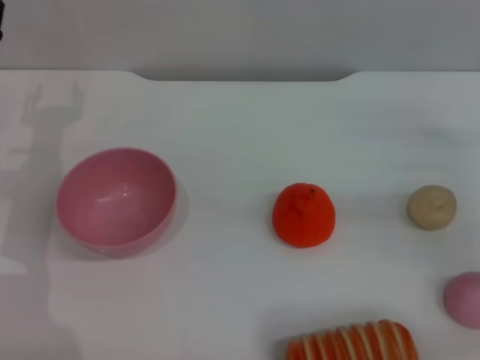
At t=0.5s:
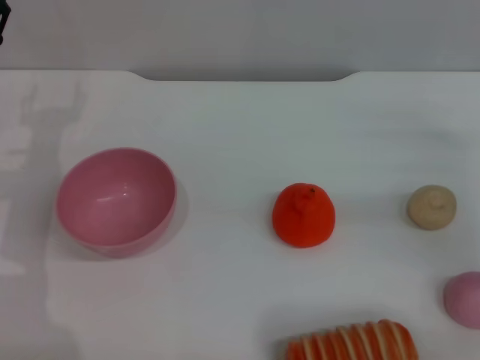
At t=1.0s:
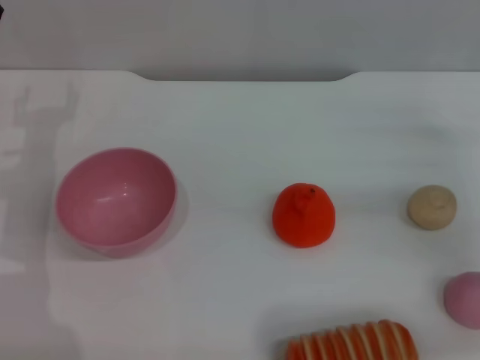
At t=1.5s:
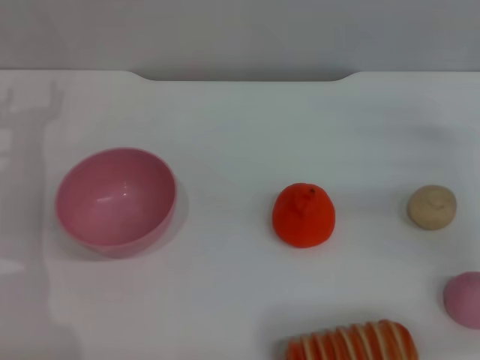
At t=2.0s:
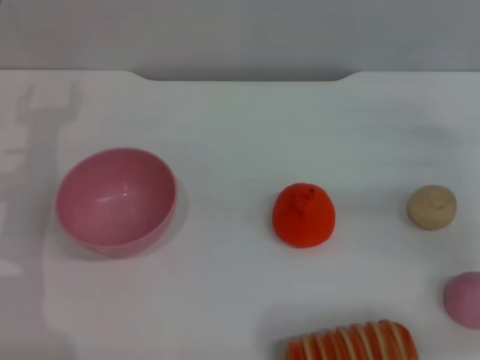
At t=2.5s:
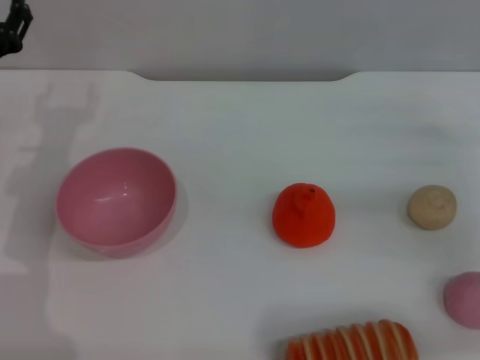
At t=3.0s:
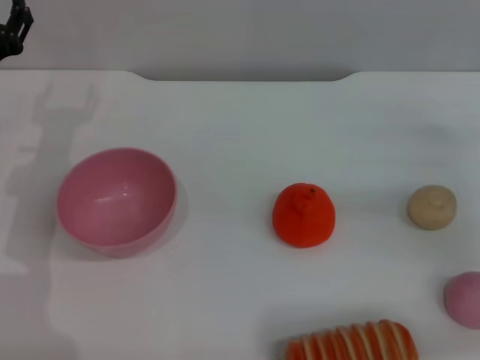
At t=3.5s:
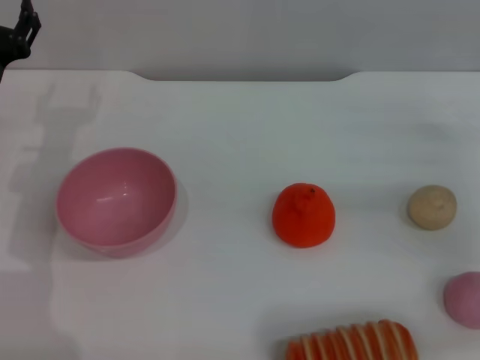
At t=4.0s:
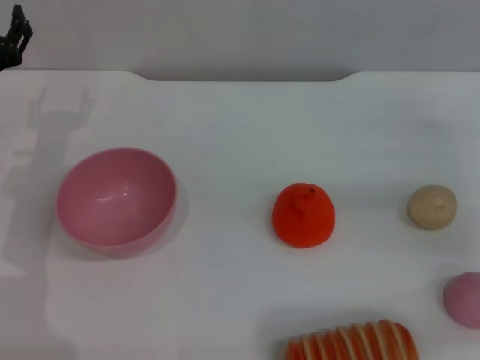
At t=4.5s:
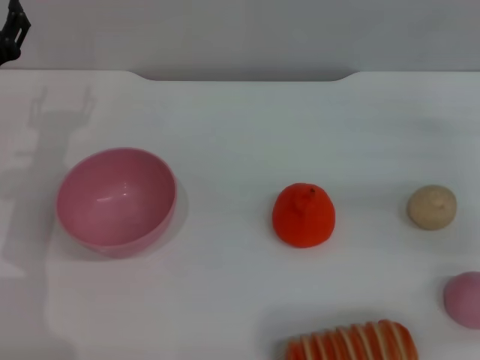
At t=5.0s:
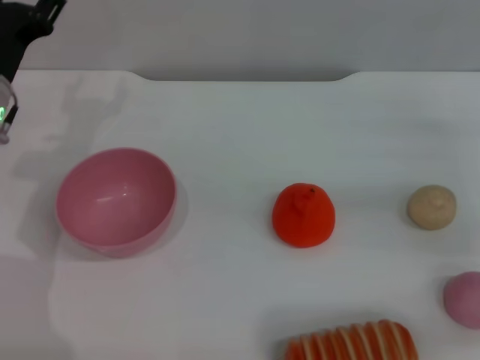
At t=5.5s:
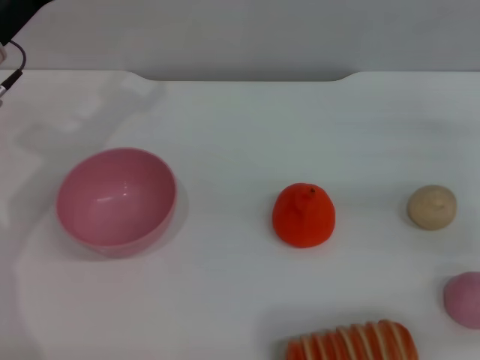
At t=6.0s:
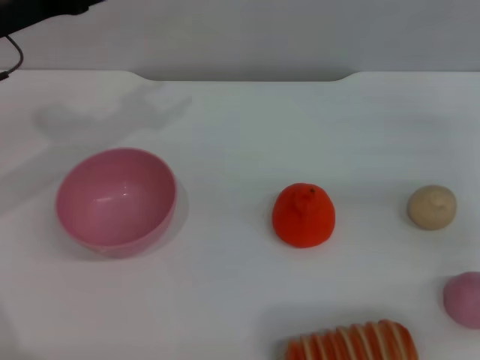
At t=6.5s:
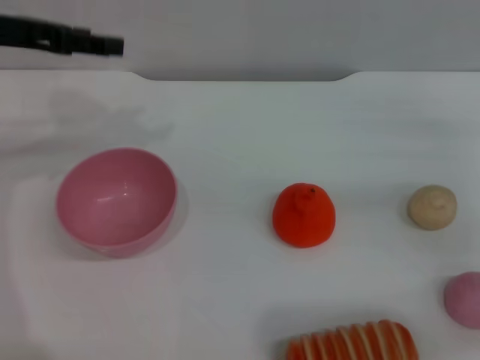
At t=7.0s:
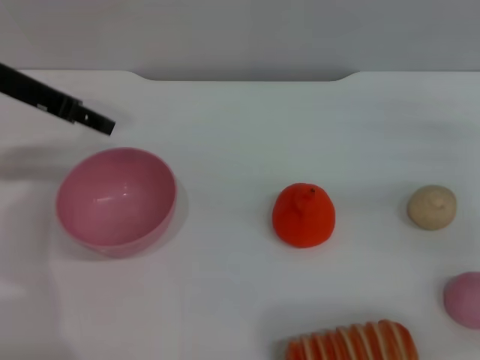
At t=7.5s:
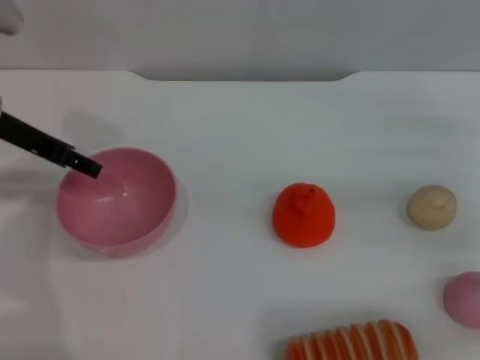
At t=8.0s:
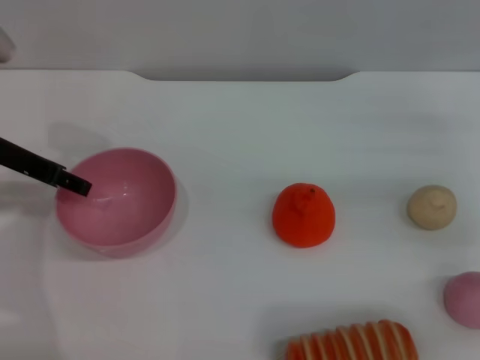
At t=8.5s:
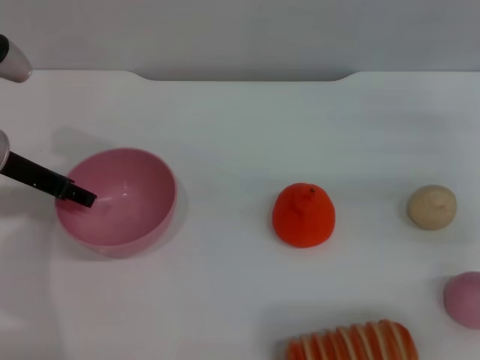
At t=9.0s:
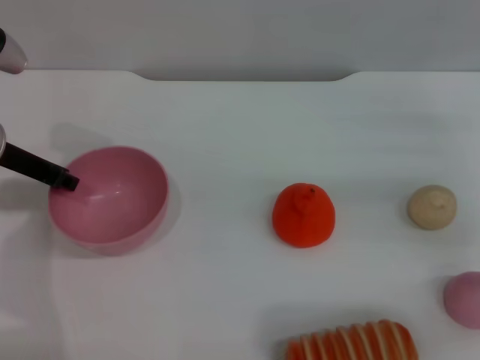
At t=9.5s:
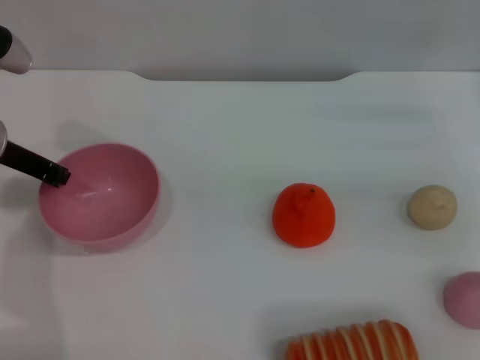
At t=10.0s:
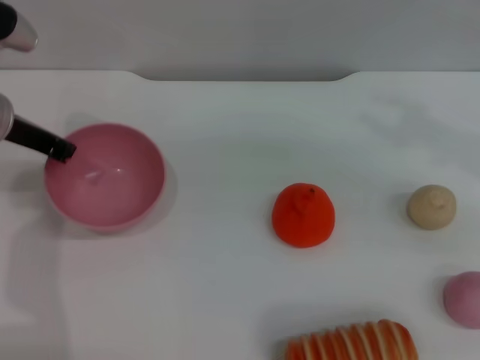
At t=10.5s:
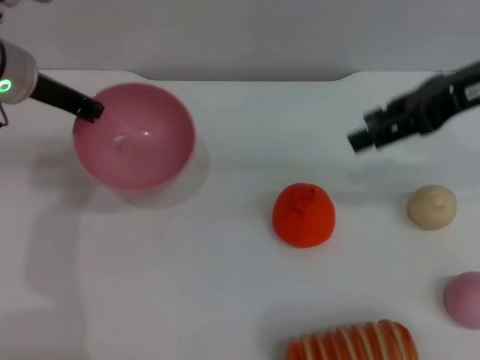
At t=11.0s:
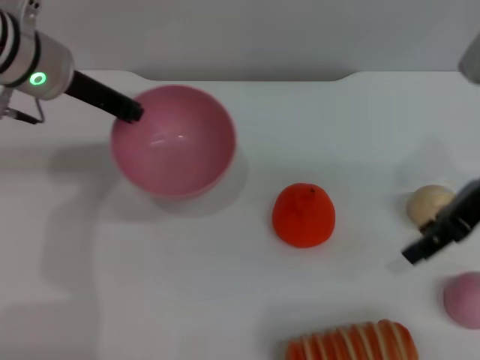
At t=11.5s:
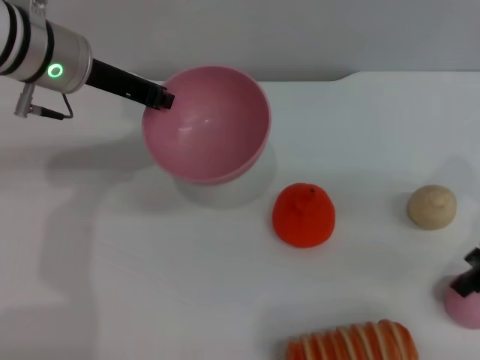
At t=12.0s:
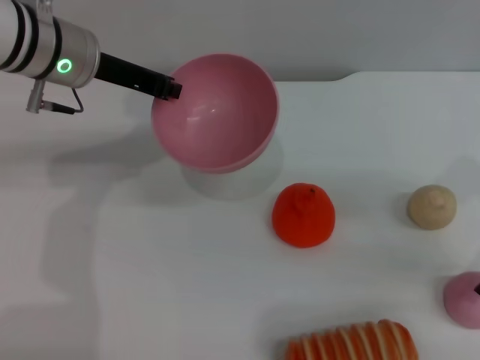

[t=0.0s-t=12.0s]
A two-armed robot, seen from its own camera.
Task of the whole recording: put the peach into the pink bowl and pour it out repeatedly.
Step, t=0.0s to t=10.5s: Pick up the bowl with the left gripper.
t=4.0s to t=6.0s: The left gripper is displaced upward by roughly 10 cm.
t=8.0s to t=10.0s: The left gripper closes up.
t=10.0s to t=12.0s: The right gripper moves downward, roughly 5 cm. Meanwhile the left gripper heads to the right, covering approximately 10 cm.

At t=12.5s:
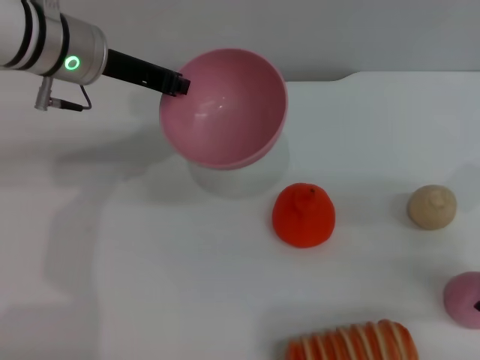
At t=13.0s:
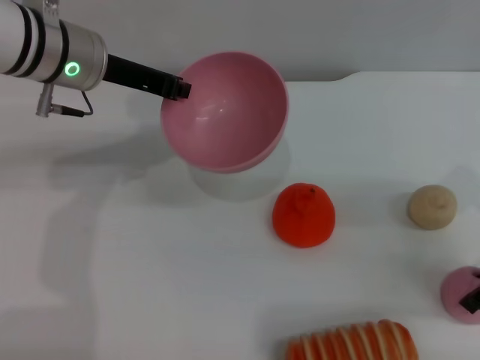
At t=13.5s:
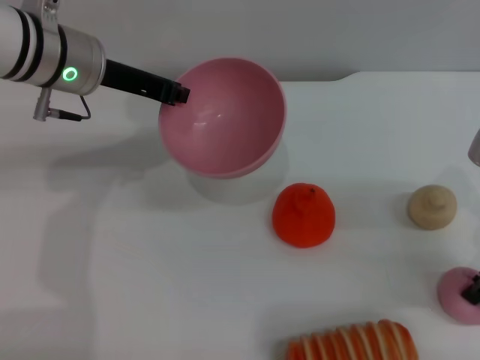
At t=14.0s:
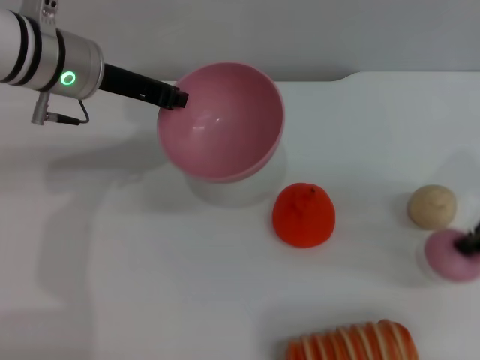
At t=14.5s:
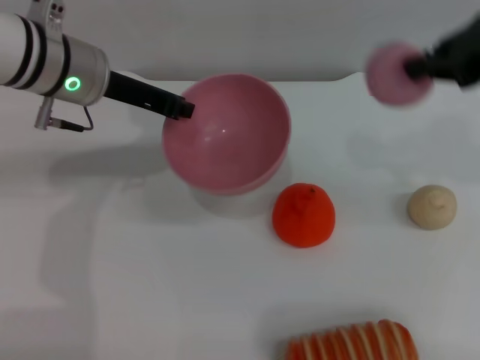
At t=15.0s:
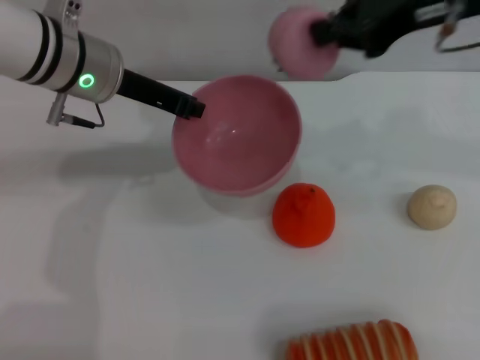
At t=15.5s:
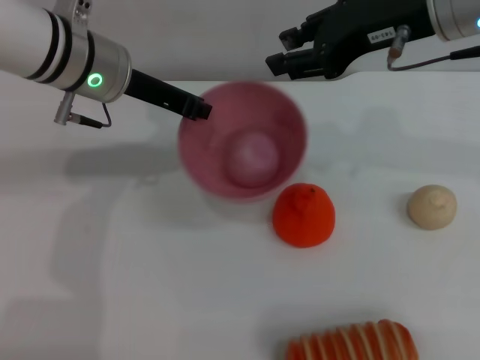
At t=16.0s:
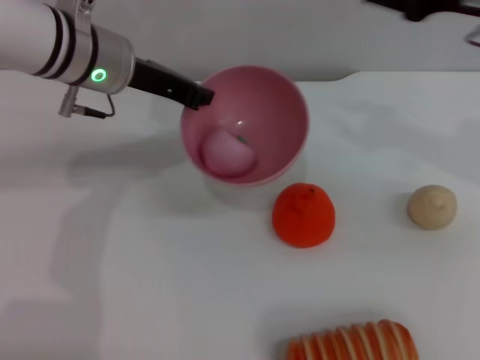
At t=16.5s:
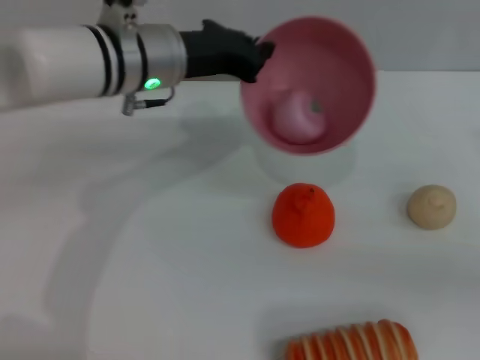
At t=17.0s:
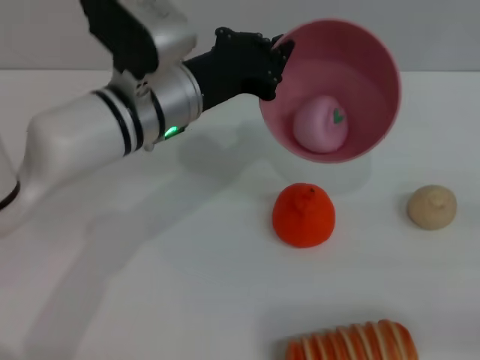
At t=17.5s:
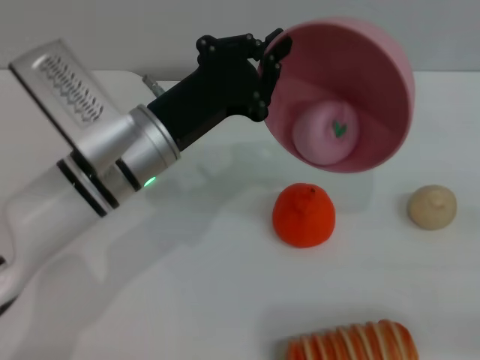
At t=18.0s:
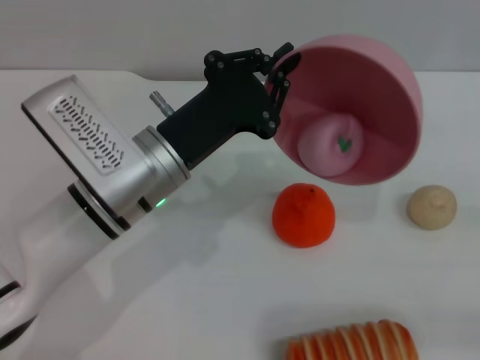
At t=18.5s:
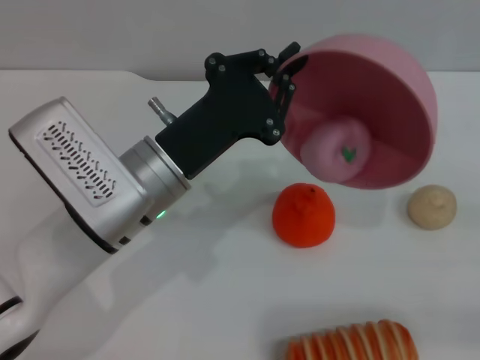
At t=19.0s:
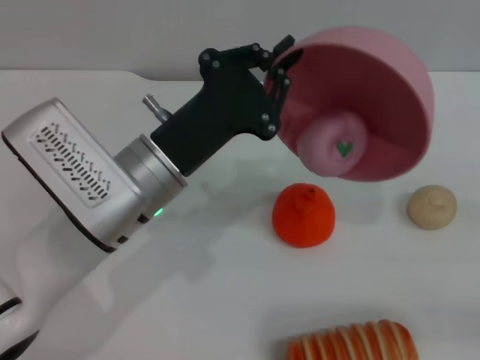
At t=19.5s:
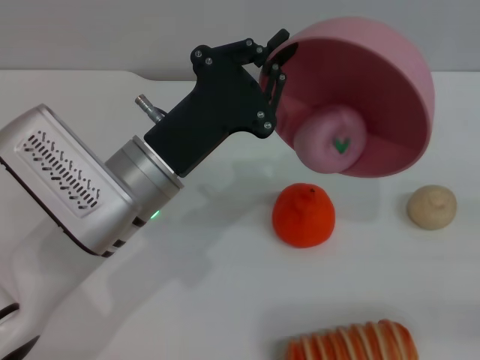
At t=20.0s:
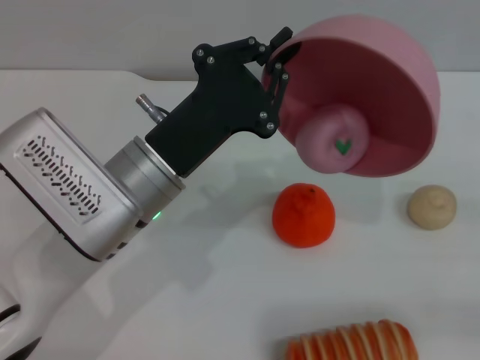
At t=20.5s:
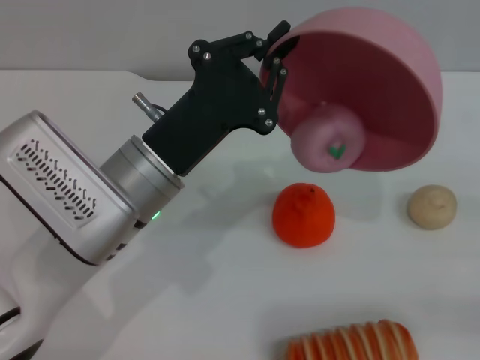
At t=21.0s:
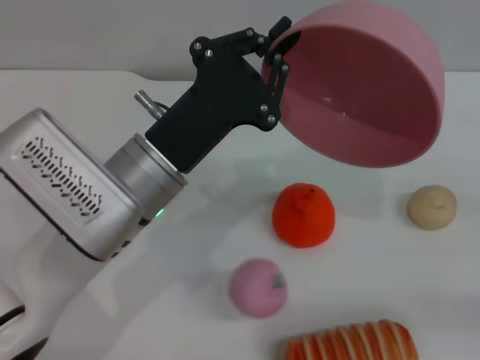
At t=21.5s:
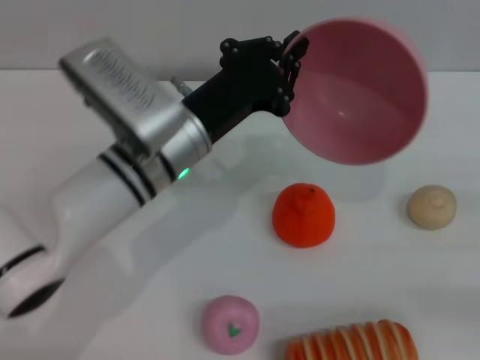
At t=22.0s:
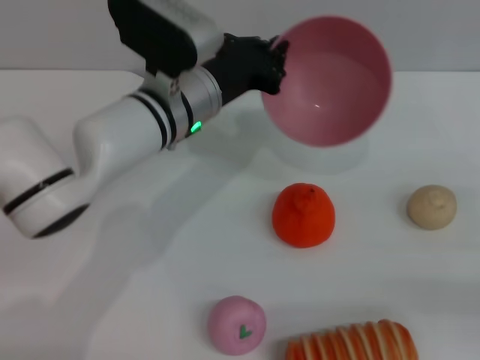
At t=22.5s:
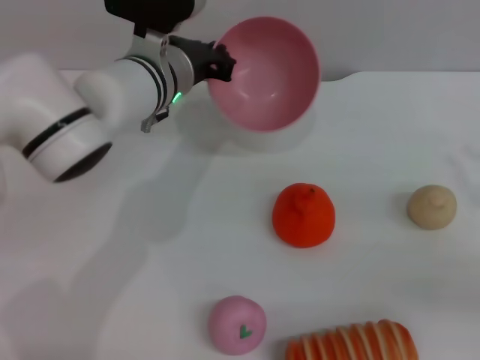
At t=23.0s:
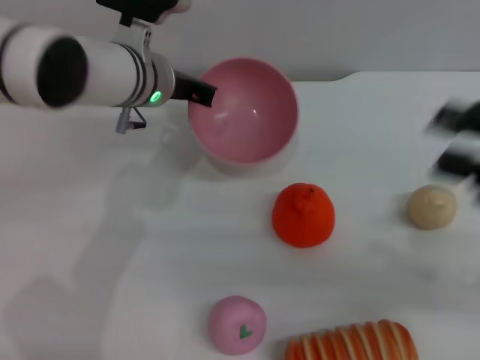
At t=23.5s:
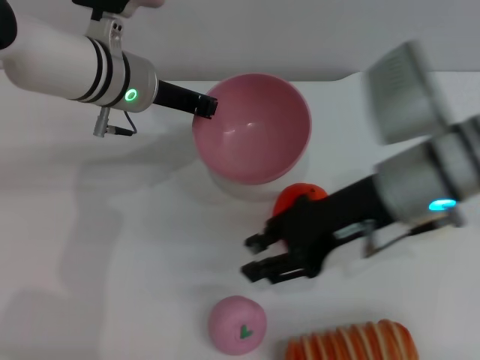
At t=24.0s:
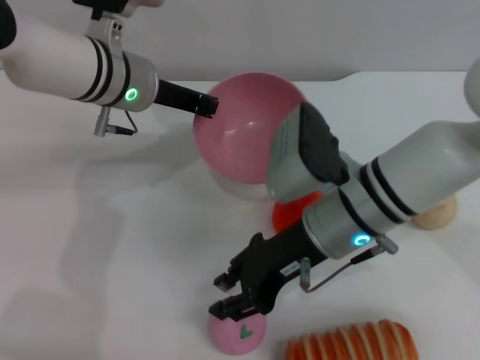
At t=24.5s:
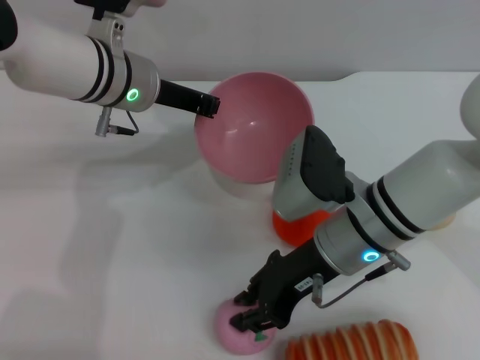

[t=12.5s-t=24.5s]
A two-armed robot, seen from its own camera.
Task of the whole recording: put the peach into the pink bowl and pour it out repeatedly.
Step, t=14.5s to t=15.5s: Place the peach into the bowl.
Step, t=16.0s to t=21.5s: Pour the peach out of bowl.
t=12.5s to t=14.5s: The right gripper is displaced upward by approximately 15 cm, and closes its fingers.
t=14.5s to t=16.5s: The left gripper moves to the right, about 5 cm. Meanwhile the right gripper is displaced downward, to the right and backward by approximately 20 cm, and opens up.
t=16.5s to t=18.5s: The right gripper heads backward, covering about 5 cm. The left gripper travels backward and downward by some 15 cm.
t=18.5s to t=20.5s: The grippers make only small movements.
t=20.5s to t=22.5s: The left gripper heads forward, covering about 15 cm. Meanwhile the right gripper is displaced to the left by about 5 cm.
t=22.5s to t=24.5s: The right gripper travels to the left by some 25 cm.

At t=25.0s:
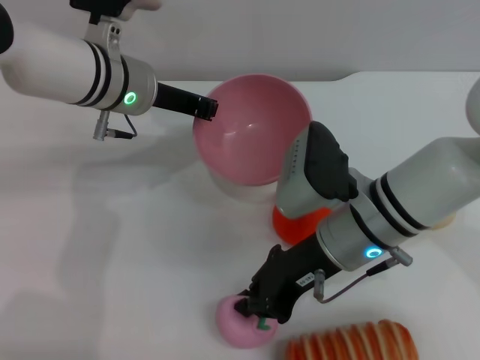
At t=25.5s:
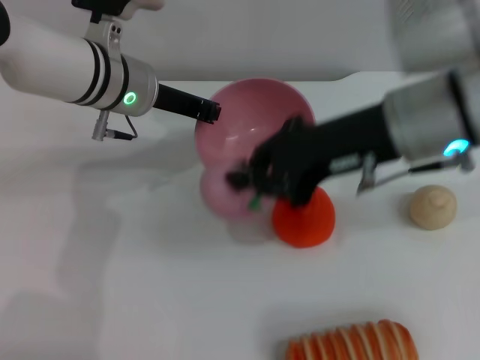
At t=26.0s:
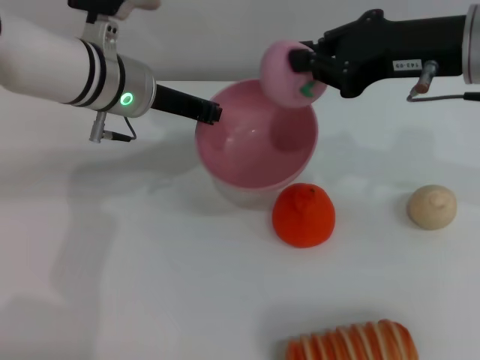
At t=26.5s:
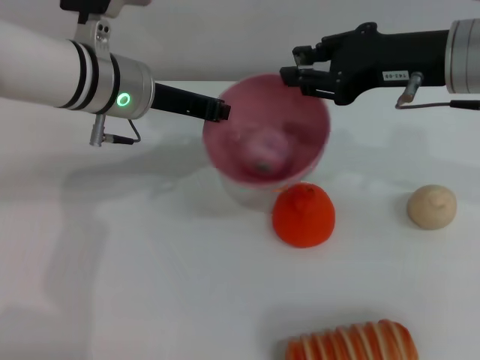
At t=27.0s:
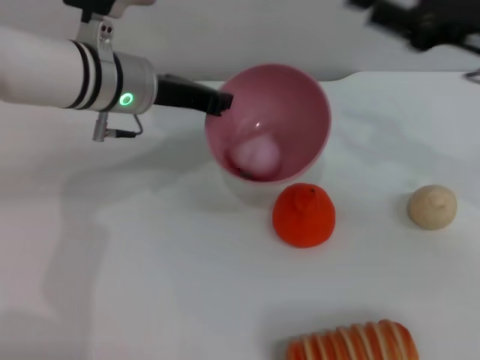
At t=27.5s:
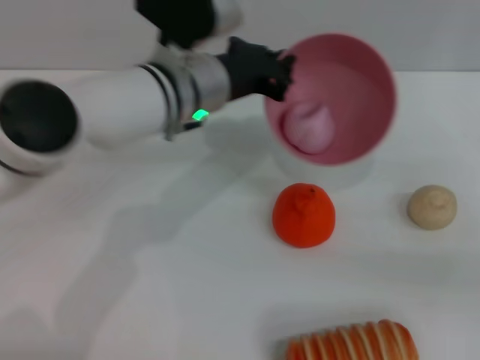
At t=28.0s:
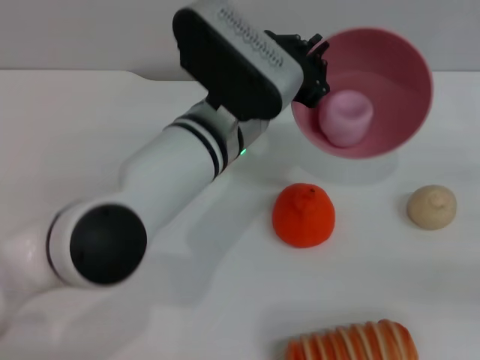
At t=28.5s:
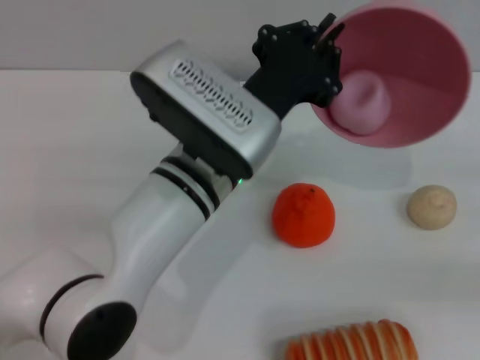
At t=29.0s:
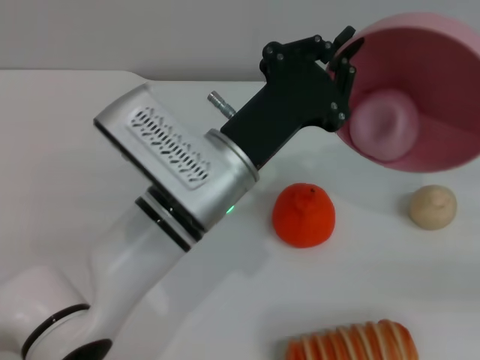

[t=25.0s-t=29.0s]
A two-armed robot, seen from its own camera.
Task of the whole recording: put the peach into the pink bowl and pour it out repeatedly.
Step, t=25.5s to t=26.0s: Place the peach into the bowl.
t=25.0s to t=27.0s: The right gripper is displaced to the right and upward by roughly 20 cm, and opens its fingers.
t=27.0s to t=29.0s: The right gripper goes about 20 cm to the right, downward and backward; the left gripper goes some 15 cm backward and to the right.
